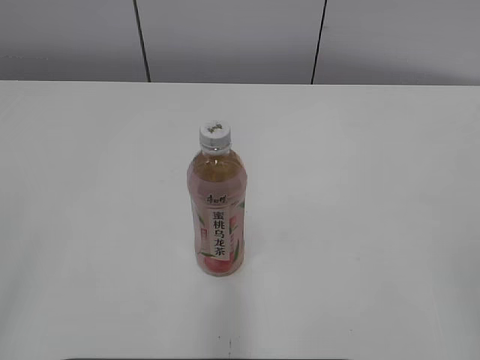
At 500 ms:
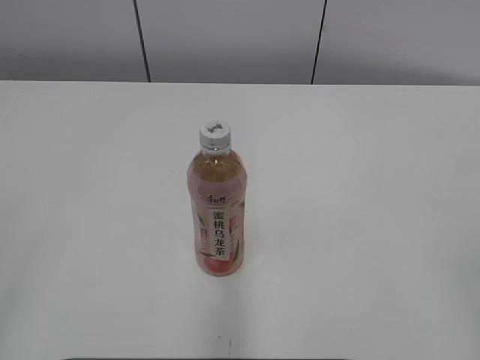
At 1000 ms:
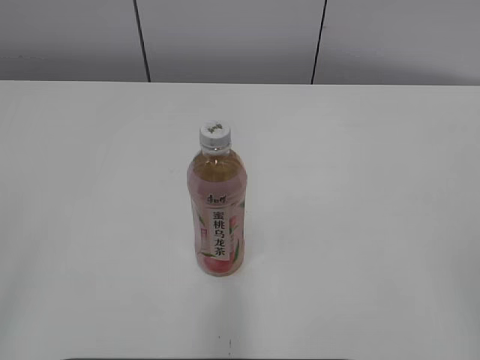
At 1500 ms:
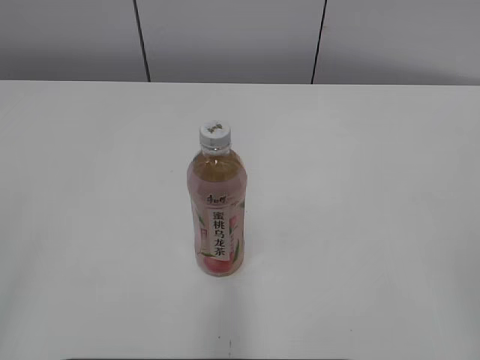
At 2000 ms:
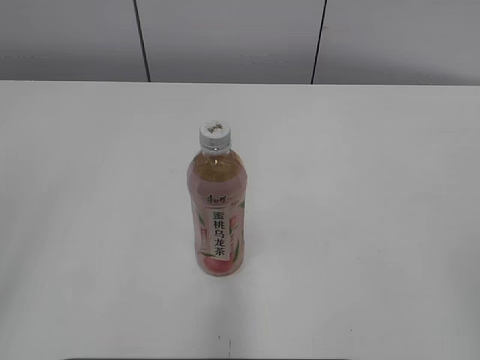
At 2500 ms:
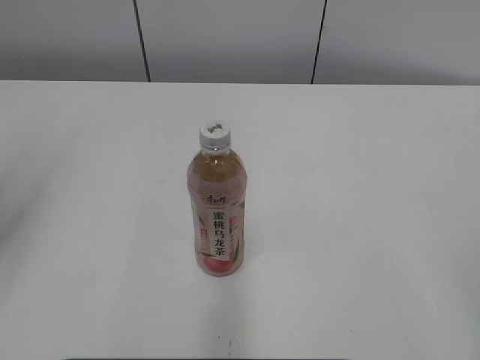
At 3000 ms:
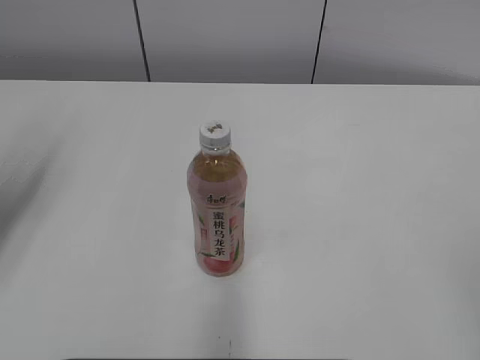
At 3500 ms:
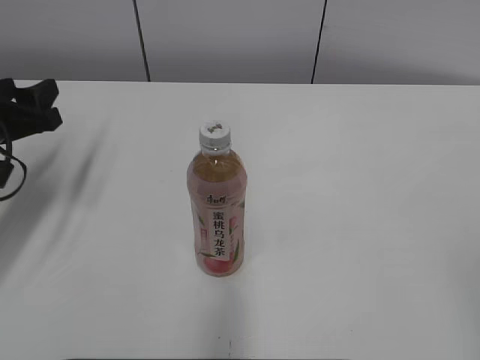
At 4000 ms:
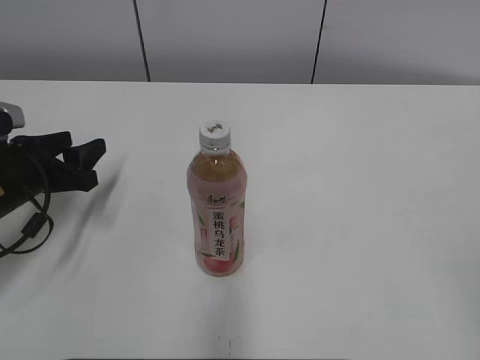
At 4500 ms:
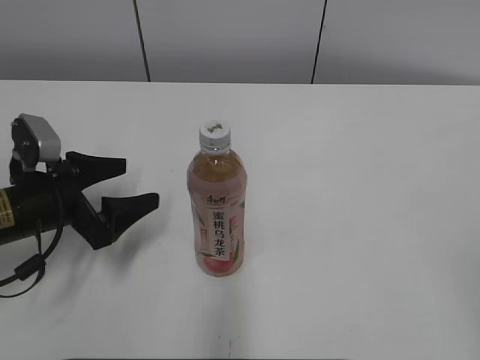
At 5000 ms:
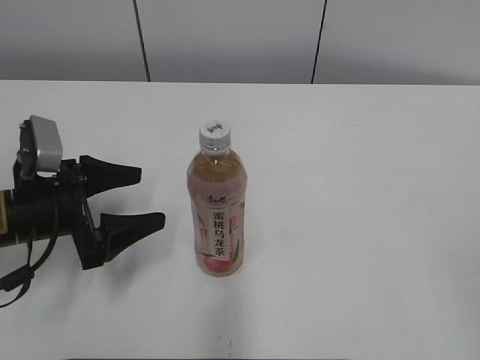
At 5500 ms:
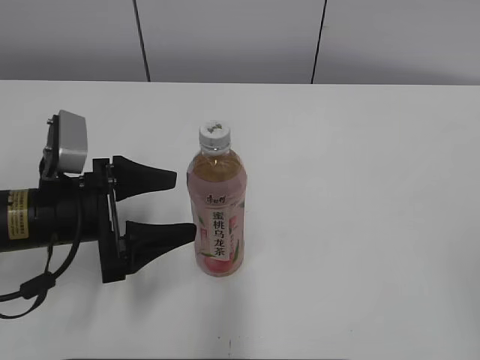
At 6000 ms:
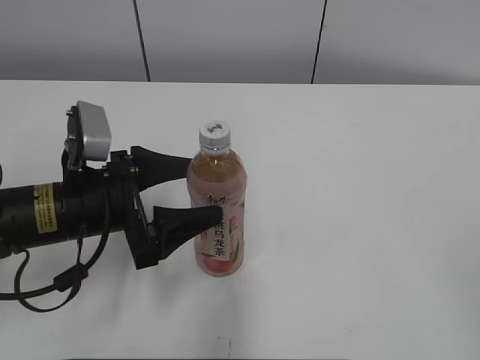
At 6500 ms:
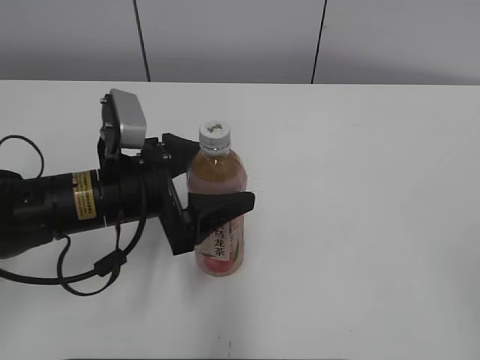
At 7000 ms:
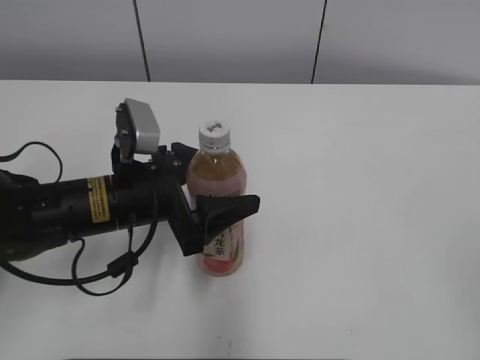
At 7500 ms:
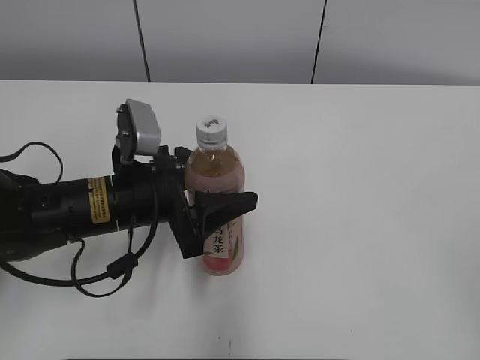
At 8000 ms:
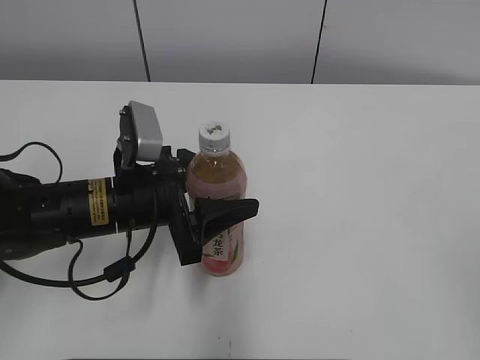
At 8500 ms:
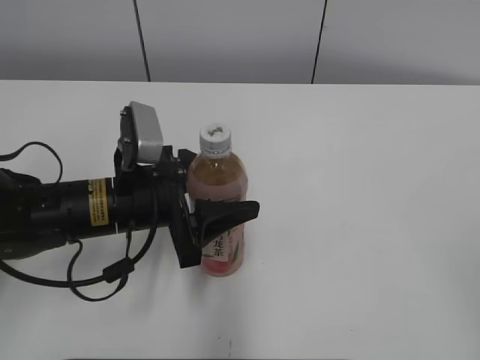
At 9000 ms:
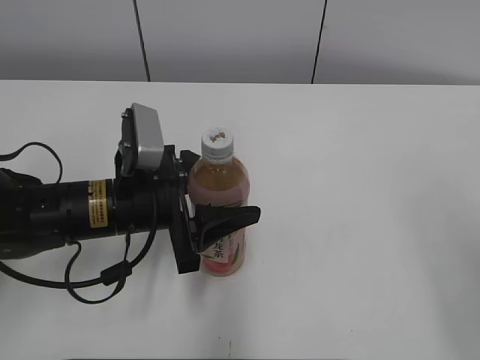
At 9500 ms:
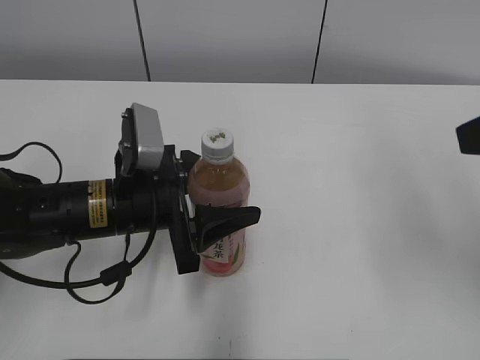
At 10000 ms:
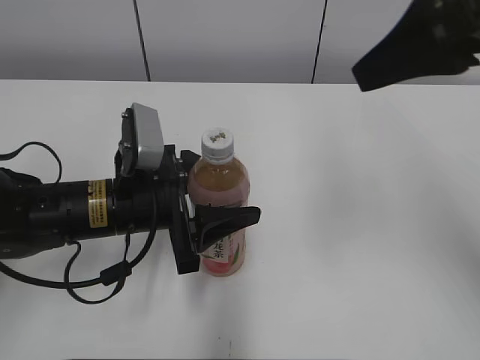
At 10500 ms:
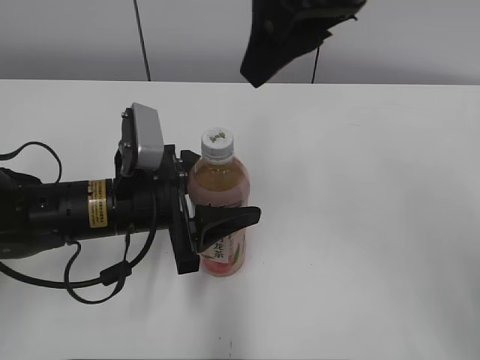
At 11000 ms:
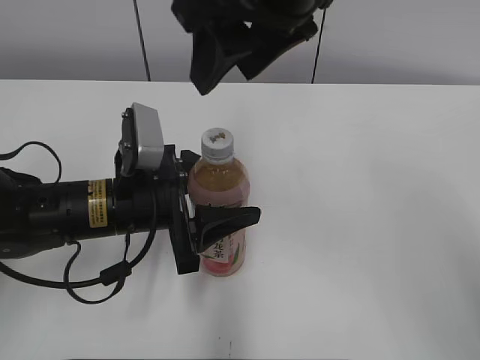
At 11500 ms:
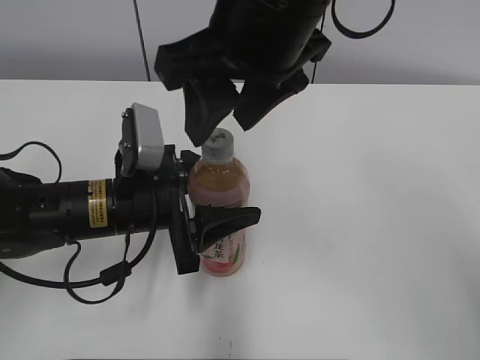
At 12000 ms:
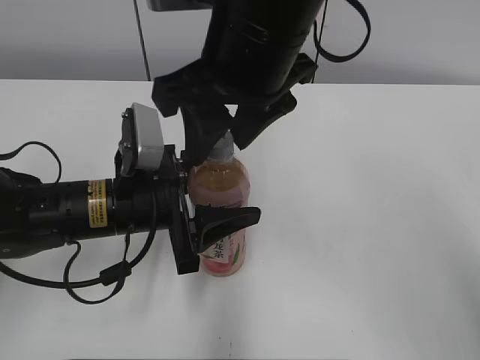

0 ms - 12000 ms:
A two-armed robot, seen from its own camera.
Step, 0 ms - 11000 ms: Grab the Peach Oolong Tea with the left hand.
2000 ms - 4000 ms: The left gripper moves forward and downward, roughly 35 cm.
4000 ms - 6000 ms: The left gripper goes some 10 cm to the right and backward, and opens.
6000 ms - 8000 ms: The left gripper closes.
8000 ms - 10000 ms: The right gripper shifts some 30 cm forward and to the left.
10000 ms - 12000 ms: The right gripper goes roughly 15 cm to the left.

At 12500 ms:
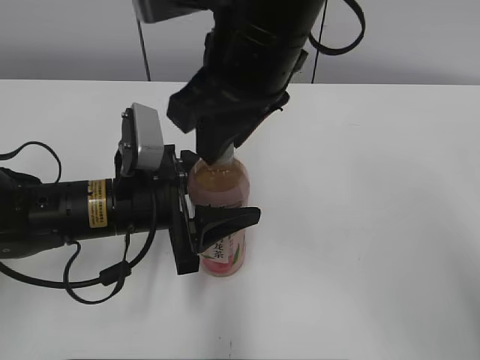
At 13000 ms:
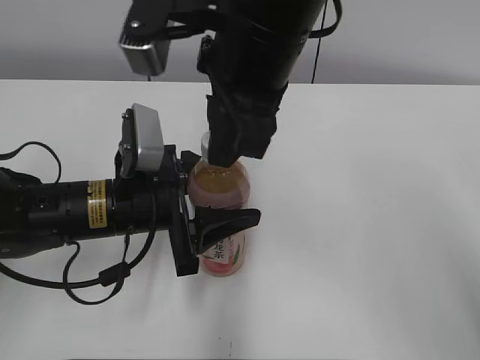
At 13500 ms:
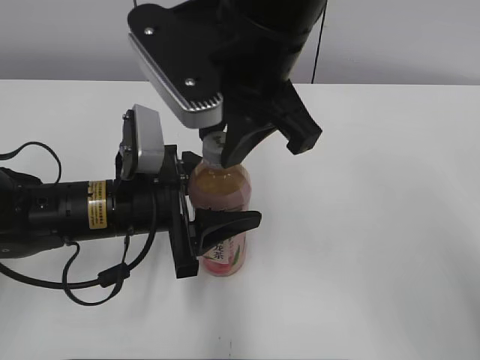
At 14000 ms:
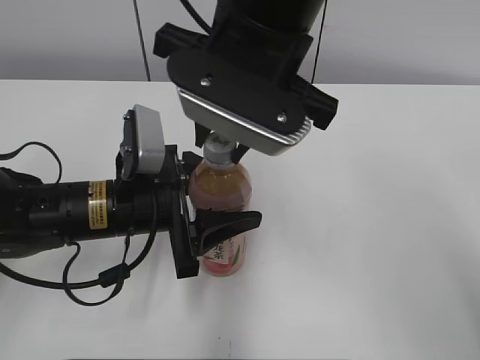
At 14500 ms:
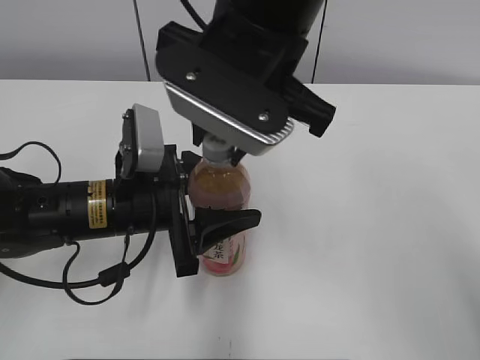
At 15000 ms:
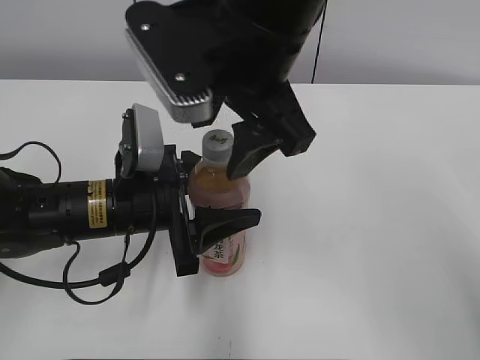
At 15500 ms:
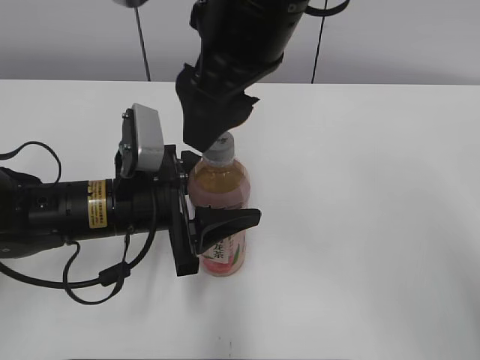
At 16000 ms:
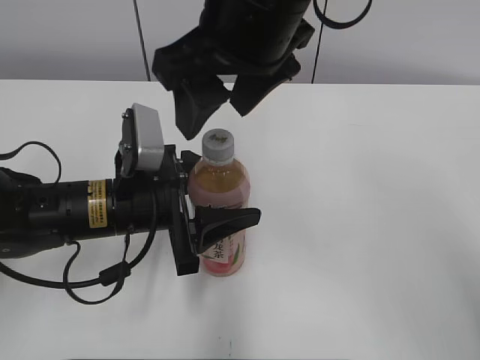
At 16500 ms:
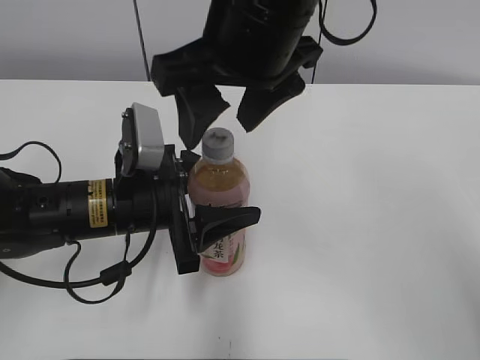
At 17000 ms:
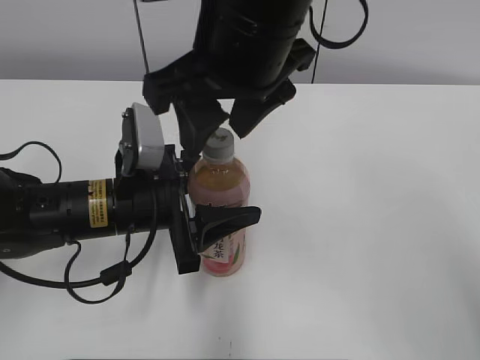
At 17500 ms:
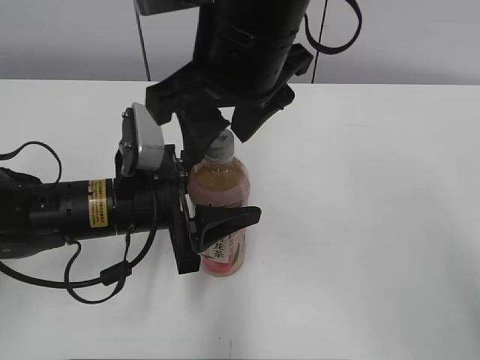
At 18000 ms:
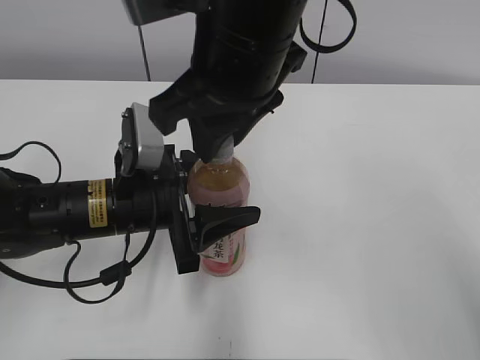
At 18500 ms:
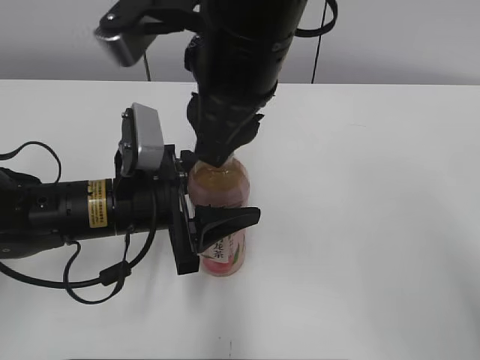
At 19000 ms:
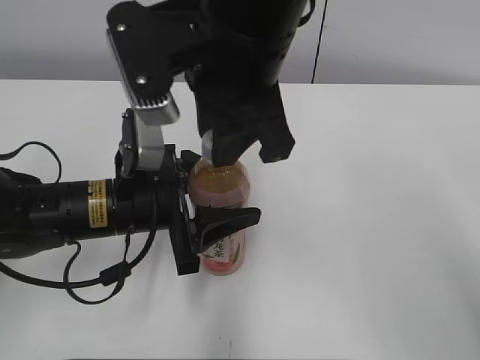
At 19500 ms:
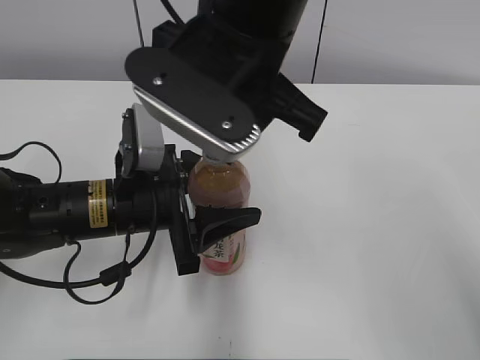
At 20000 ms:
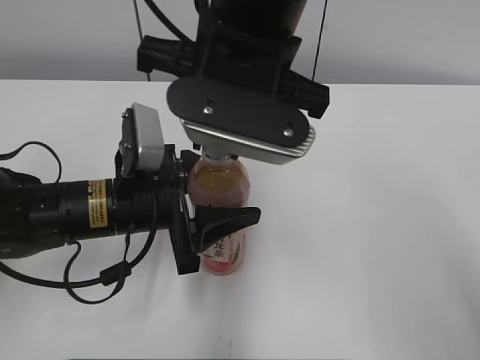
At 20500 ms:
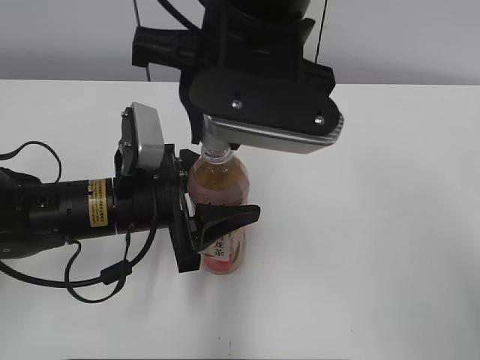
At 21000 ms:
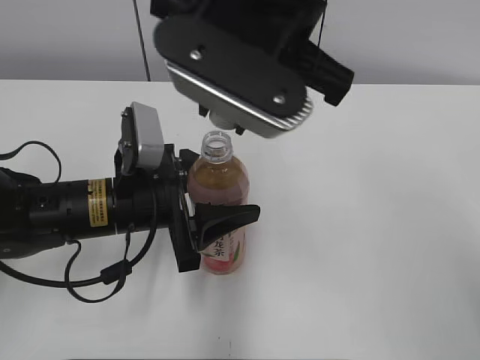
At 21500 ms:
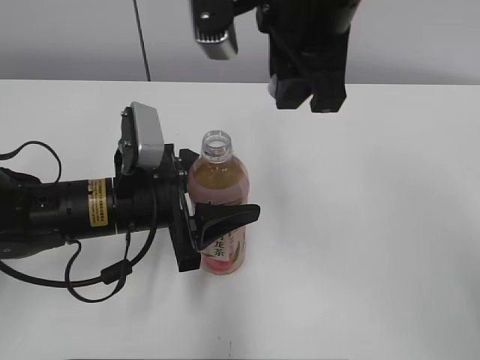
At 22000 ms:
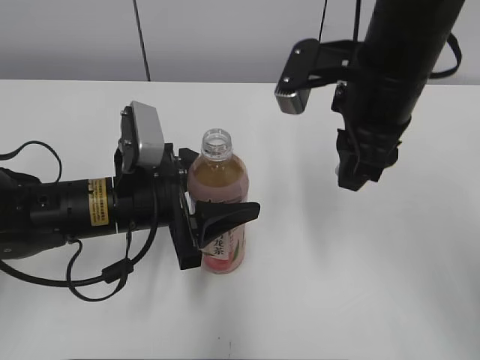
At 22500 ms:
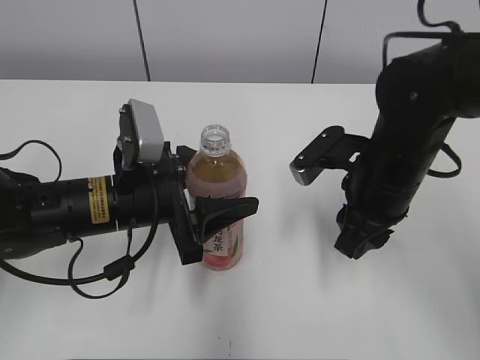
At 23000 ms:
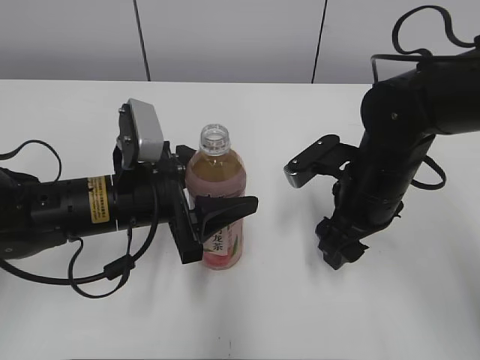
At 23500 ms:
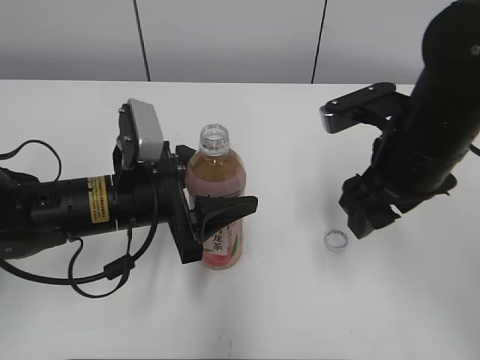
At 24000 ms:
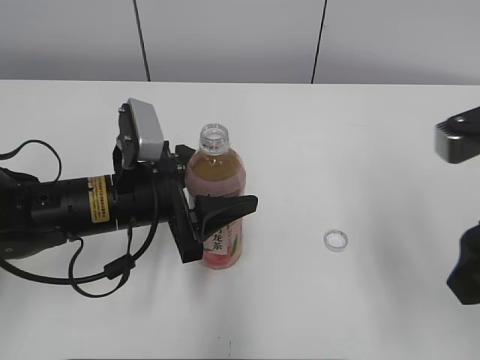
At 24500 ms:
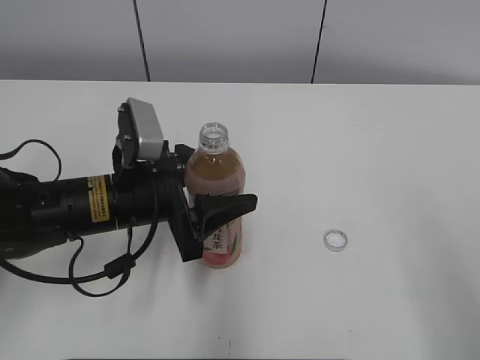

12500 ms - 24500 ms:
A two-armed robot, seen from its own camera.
Step, 21500 ms - 23500 ms: Place the bottle cap on the right.
14500 ms - 16500 ms: The right gripper opens.
16500 ms - 18500 ms: The right gripper closes.
20500 ms - 22500 ms: The right gripper is displaced downward and to the right by roughly 20 cm.
22500 ms - 24500 ms: The right gripper goes roughly 30 cm backward, upward and to the right, and opens up.

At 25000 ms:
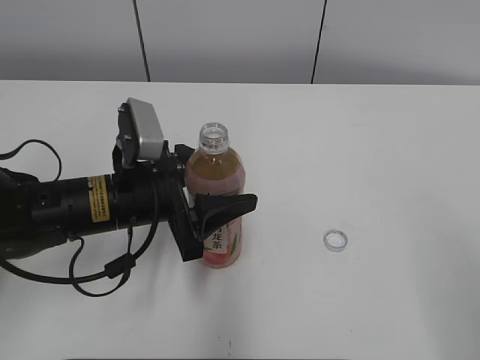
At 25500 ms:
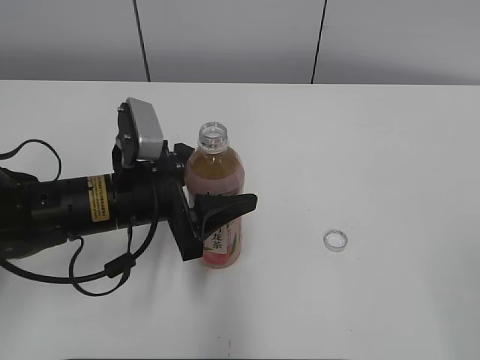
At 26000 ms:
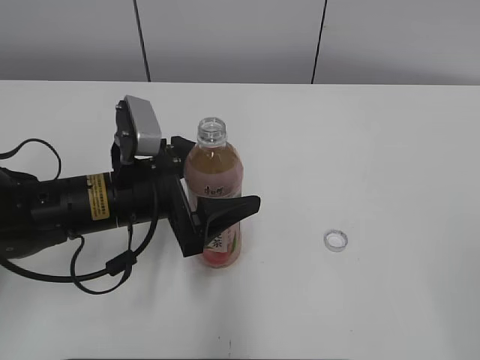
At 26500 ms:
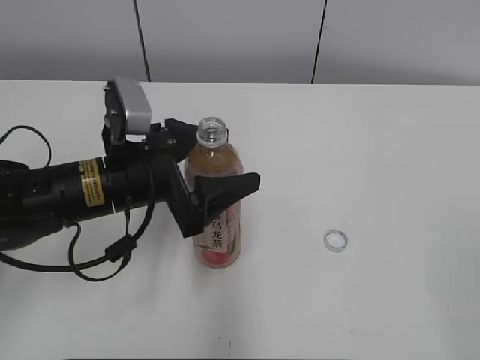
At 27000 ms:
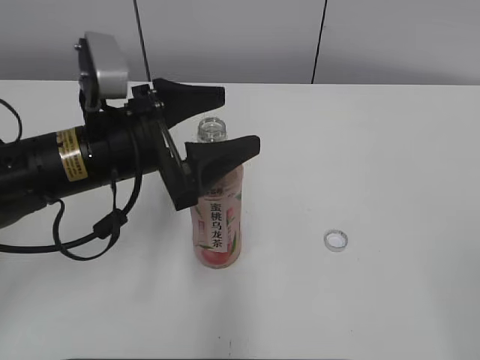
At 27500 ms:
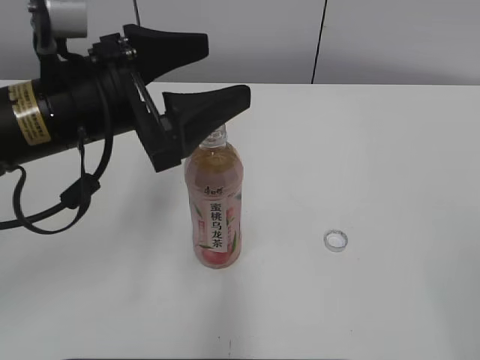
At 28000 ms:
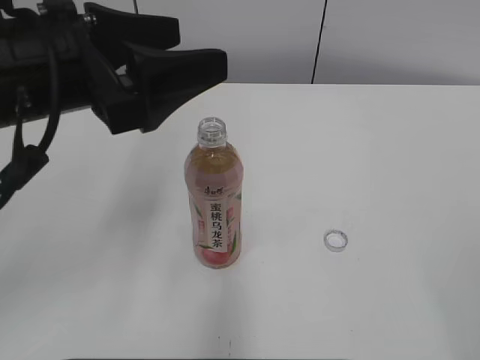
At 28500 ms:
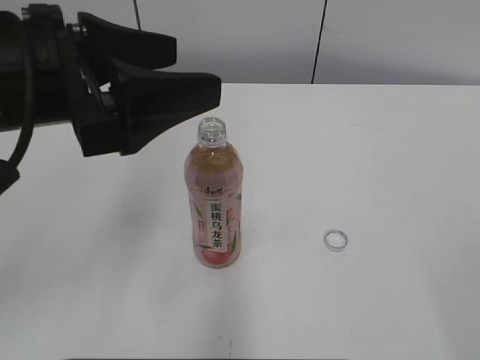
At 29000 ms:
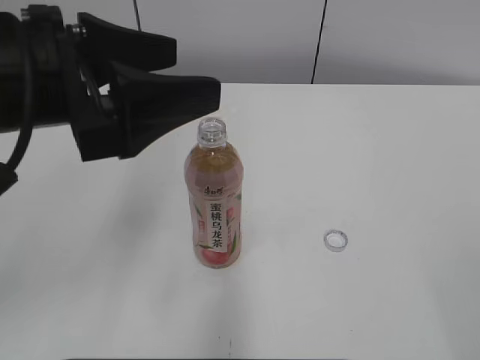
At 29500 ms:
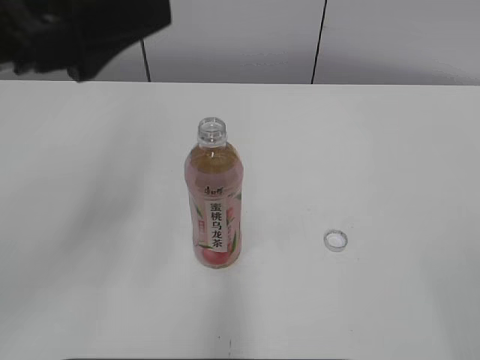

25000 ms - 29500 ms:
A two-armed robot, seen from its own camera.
Step, 25000 ms - 27000 ms: Place the Peach Oolong Tea with the left hand.
25000 ms - 27000 ms: The left gripper heads upward, covering about 5 cm, and opens its fingers.
27000 ms - 29500 ms: The left gripper is displaced upward, backward and to the left by roughly 15 cm.
